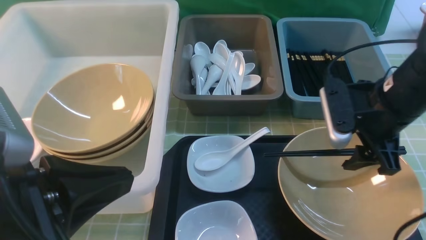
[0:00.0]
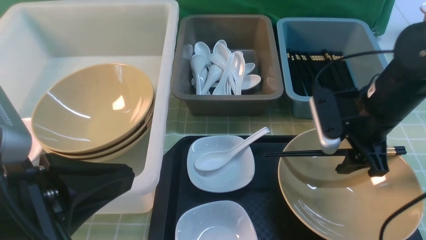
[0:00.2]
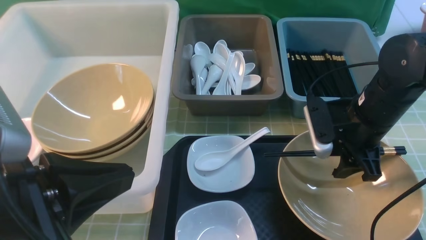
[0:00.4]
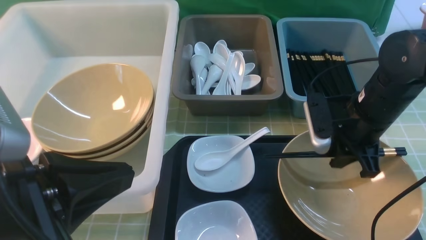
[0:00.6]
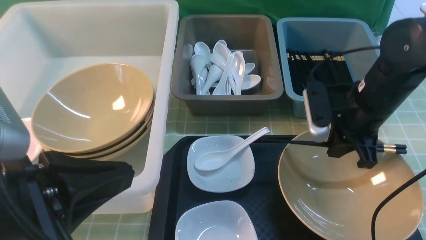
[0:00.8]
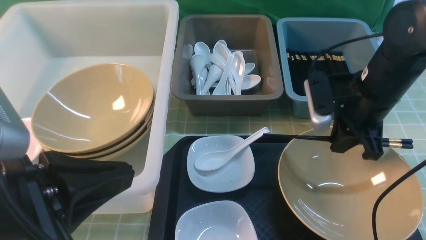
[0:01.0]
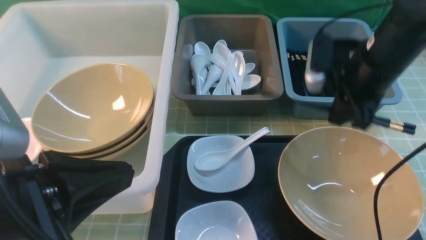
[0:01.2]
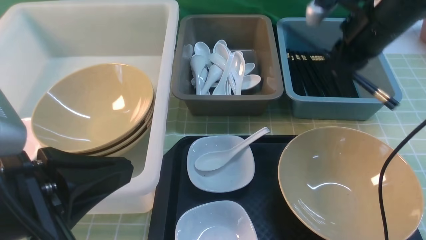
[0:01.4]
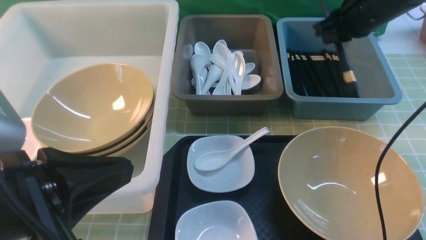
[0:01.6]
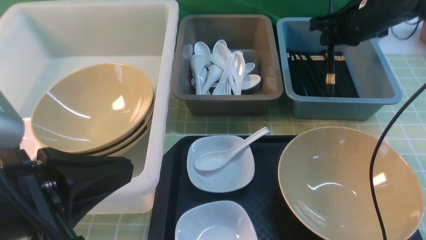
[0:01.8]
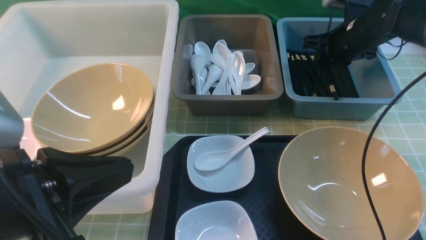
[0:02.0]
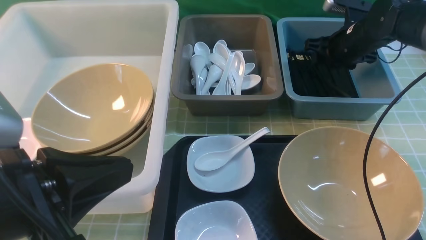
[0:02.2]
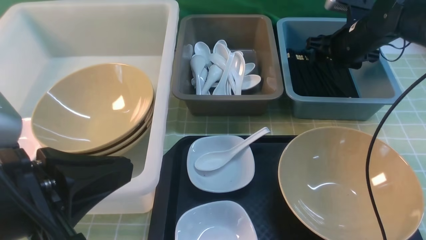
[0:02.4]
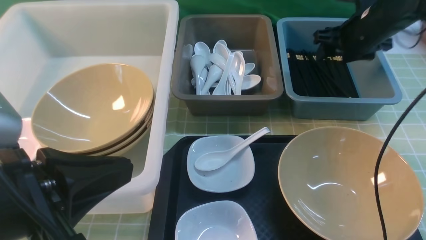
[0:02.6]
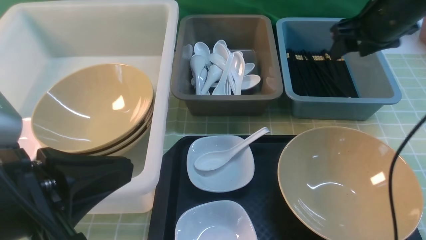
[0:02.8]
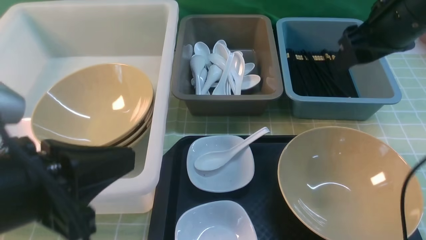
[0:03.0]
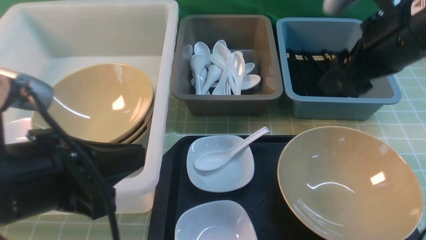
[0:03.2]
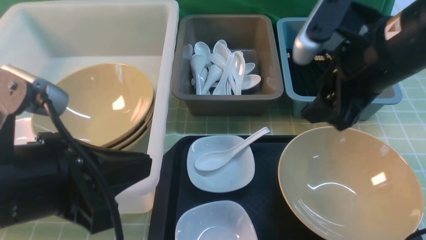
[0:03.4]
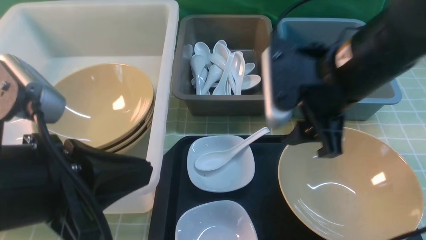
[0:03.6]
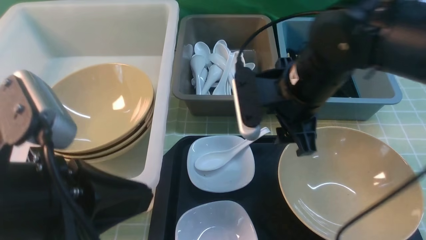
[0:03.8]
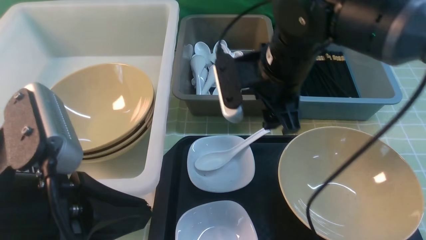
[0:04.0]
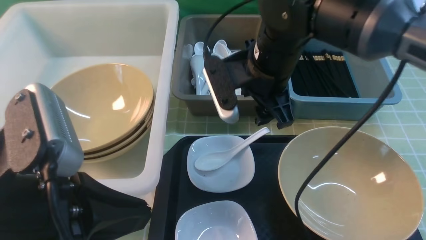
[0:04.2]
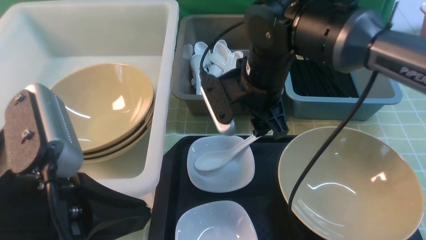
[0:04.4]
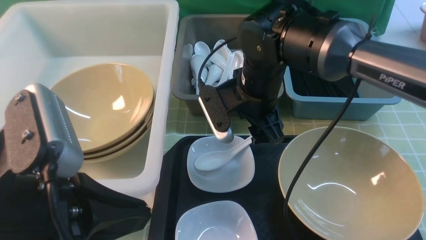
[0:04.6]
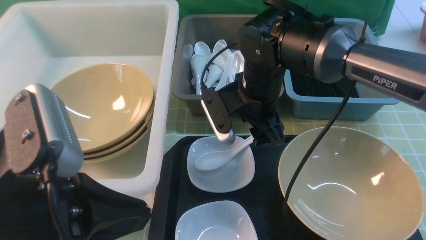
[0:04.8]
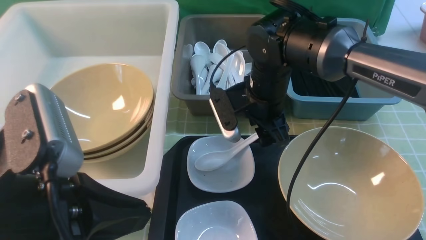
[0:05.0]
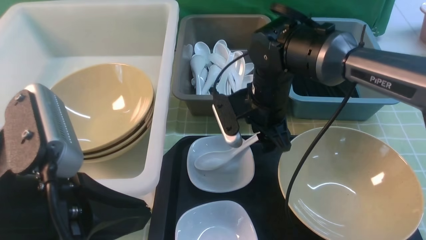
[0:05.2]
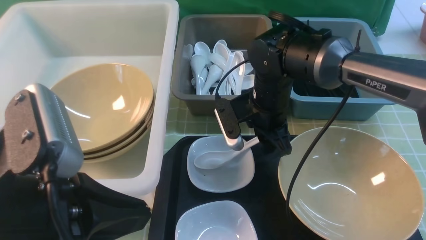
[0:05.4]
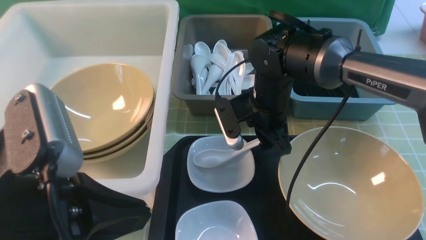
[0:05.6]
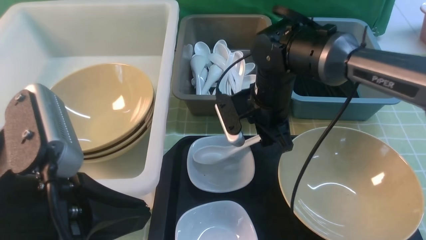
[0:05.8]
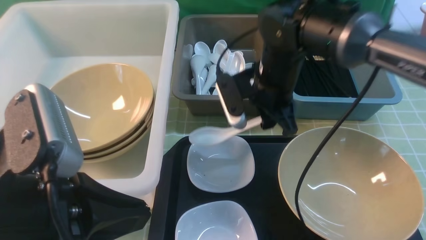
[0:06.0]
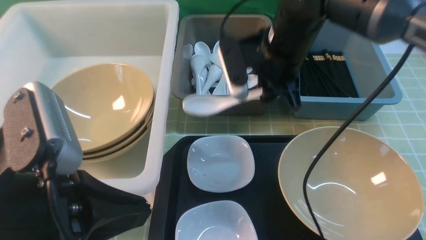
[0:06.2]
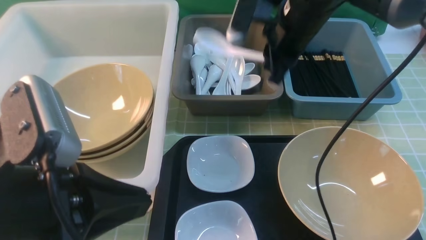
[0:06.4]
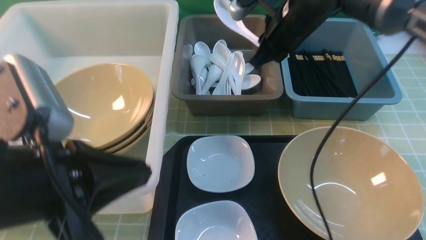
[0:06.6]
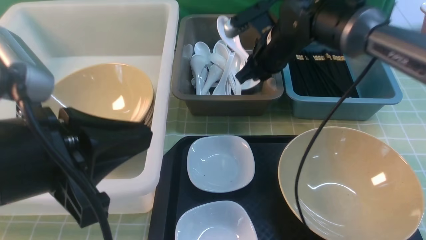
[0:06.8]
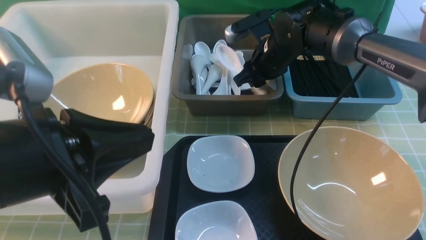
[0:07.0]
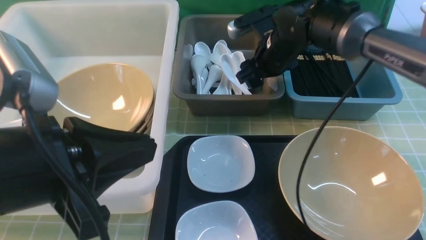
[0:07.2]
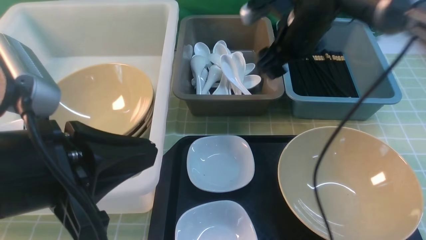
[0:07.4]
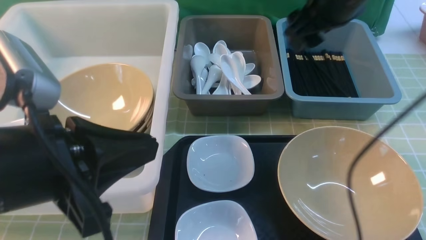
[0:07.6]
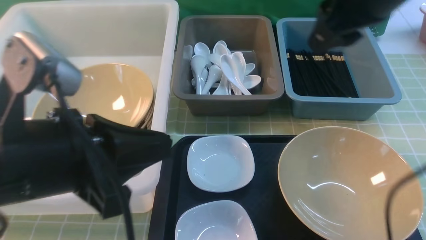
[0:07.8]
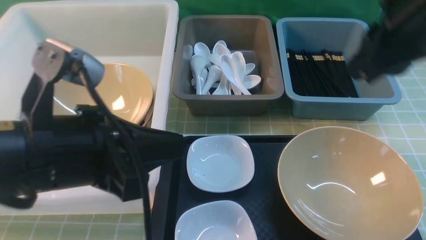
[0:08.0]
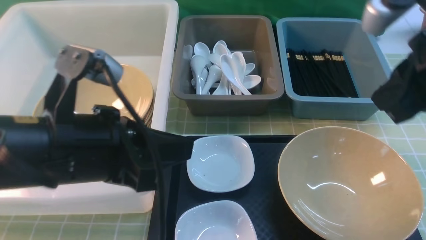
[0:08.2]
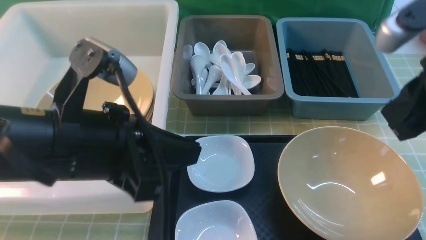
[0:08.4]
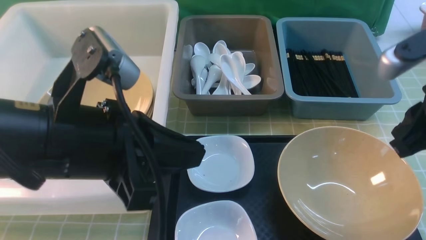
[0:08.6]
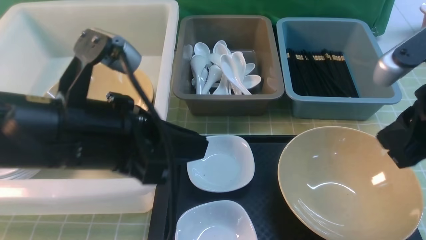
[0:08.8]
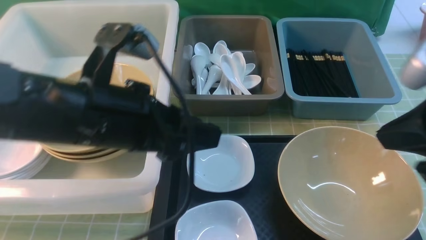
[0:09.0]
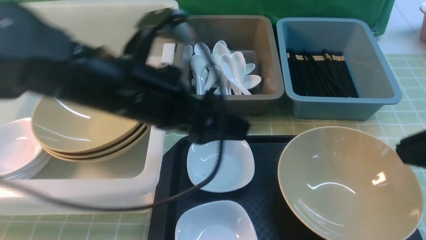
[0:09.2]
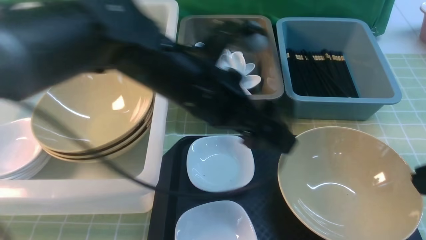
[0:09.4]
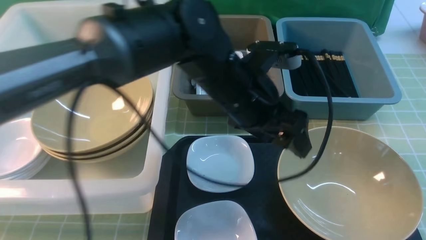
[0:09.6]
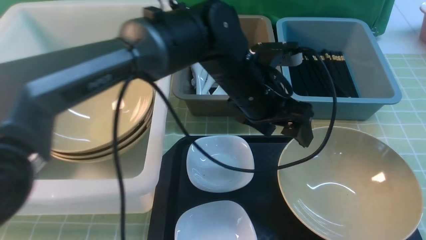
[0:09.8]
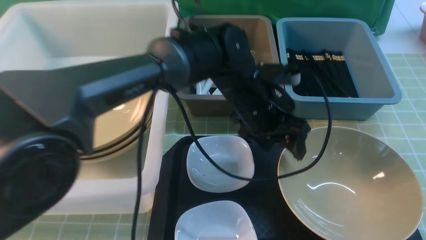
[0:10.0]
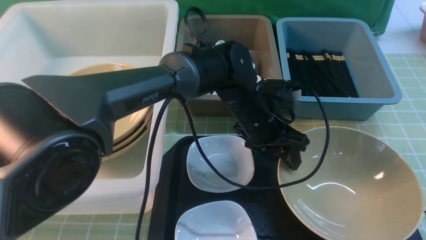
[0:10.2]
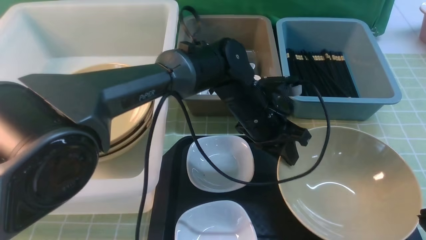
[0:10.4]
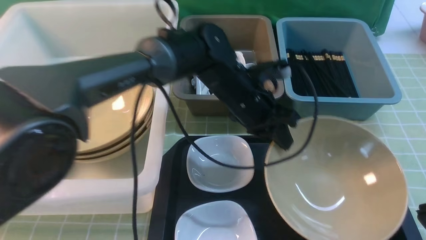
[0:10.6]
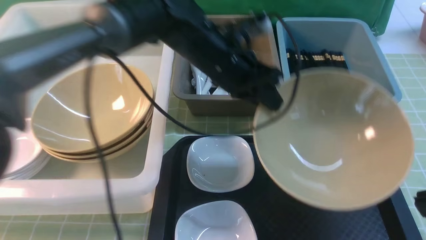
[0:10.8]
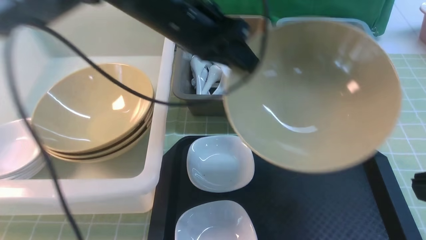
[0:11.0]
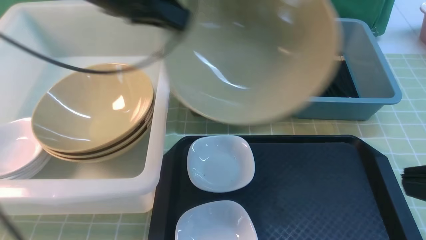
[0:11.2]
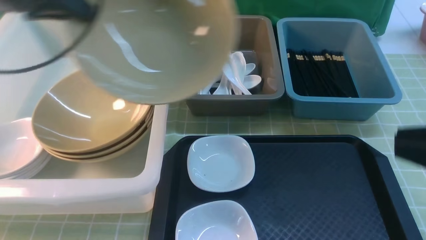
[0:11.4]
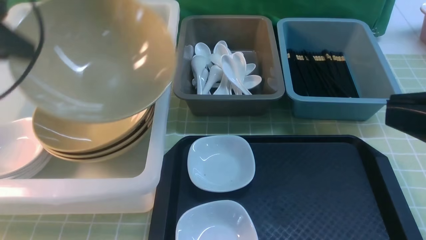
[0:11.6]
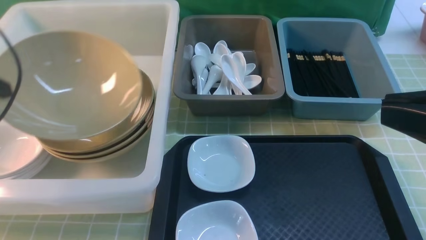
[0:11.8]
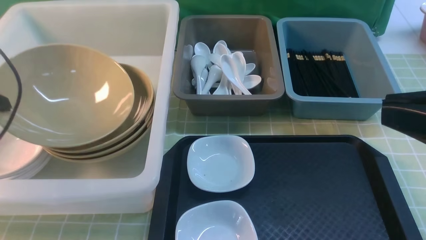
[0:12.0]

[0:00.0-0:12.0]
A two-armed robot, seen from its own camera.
Task of the whole recording: on green table put chopsticks spoon bowls plates into blue grey white boxes.
Step, 0:01.2 to 0:02.4: use the right arm to put the chopsticks into the small storage box on the right.
Step, 0:02.6 to 0:06.2: use the right arm to grab the soup spoon in the middle.
Step, 0:06.4 to 0:07.6: use the right arm to put the soup spoon into the small storage box in the middle.
Step, 0:07.8 to 0:10.4: use the left arm to grab the yellow noodle bowl on the left.
0:00.0 to 0:01.6: The right gripper goes about 15 cm forward, and closes.
0:01.6 to 0:03.0: The right gripper shifts about 10 cm backward, and opens its fingers.
0:03.0 to 0:04.4: The right gripper goes some 20 cm to the left and downward.
0:04.4 to 0:06.0: The right gripper closes its fingers.
0:06.0 to 0:07.6: The right gripper goes up and down, roughly 15 cm each way, reversing 2 times, and opens.
0:07.6 to 0:09.0: The left gripper is displaced forward and to the right by roughly 10 cm, and opens up. The right gripper heads backward and to the right, covering approximately 20 cm, and closes its fingers.
0:09.0 to 0:10.4: The right gripper shifts about 10 cm backward; the left gripper moves to the right, forward and downward, roughly 25 cm, and closes up.
0:10.4 to 0:12.0: The left gripper heads to the left, covering roughly 40 cm.

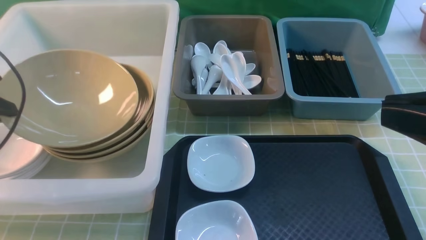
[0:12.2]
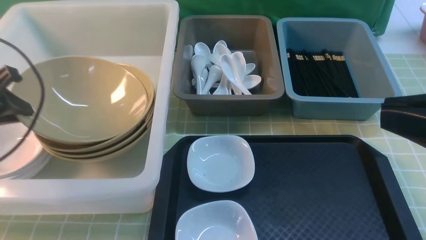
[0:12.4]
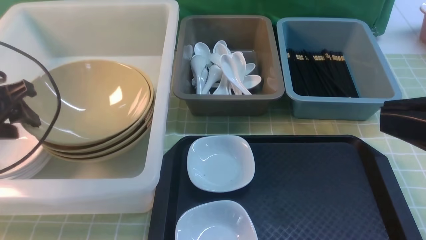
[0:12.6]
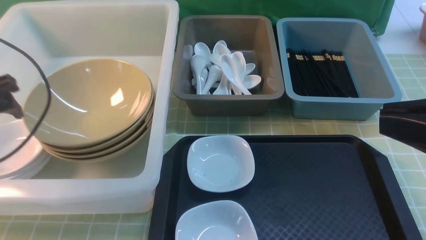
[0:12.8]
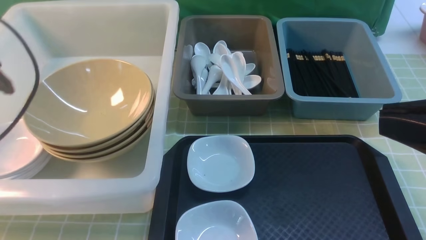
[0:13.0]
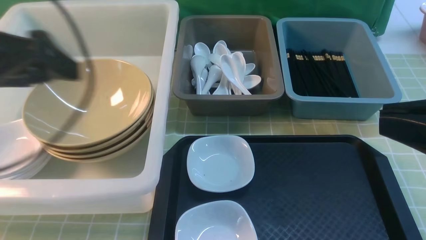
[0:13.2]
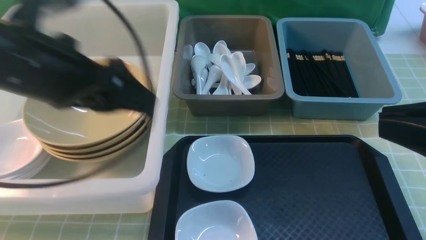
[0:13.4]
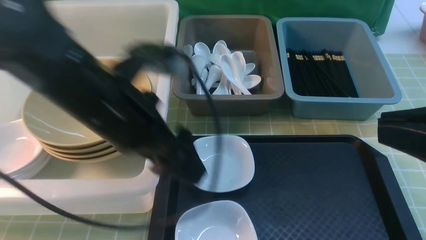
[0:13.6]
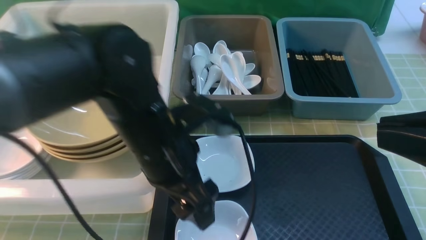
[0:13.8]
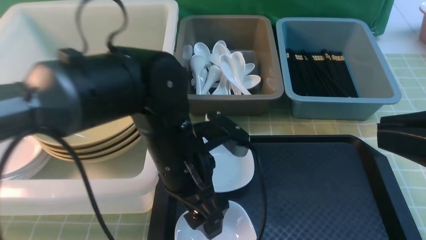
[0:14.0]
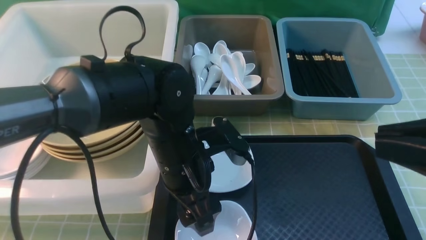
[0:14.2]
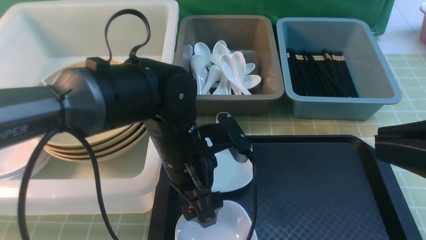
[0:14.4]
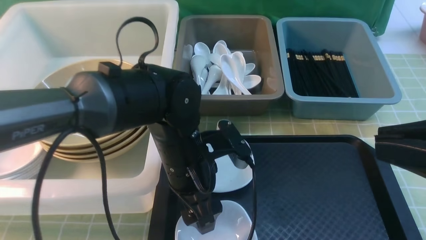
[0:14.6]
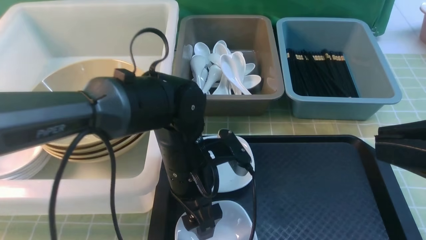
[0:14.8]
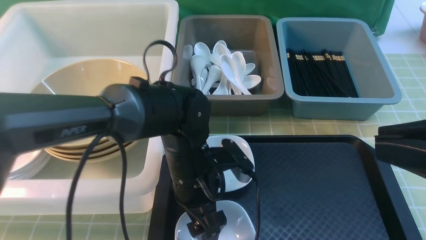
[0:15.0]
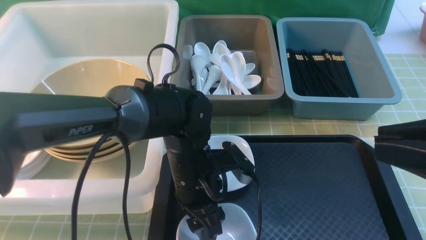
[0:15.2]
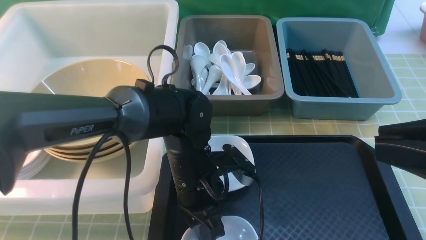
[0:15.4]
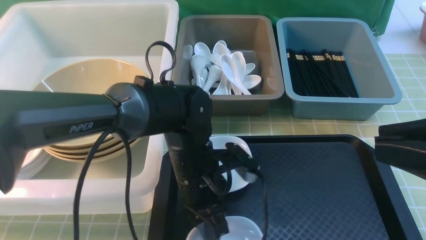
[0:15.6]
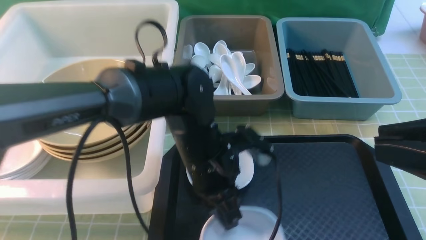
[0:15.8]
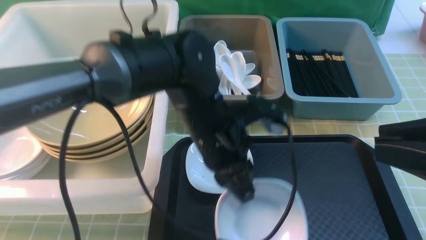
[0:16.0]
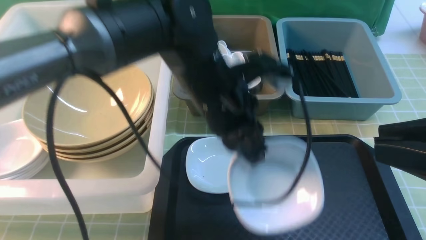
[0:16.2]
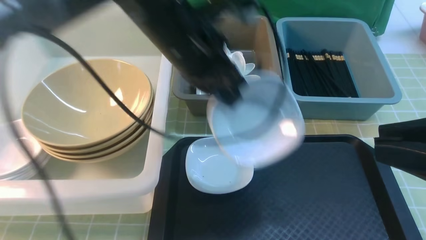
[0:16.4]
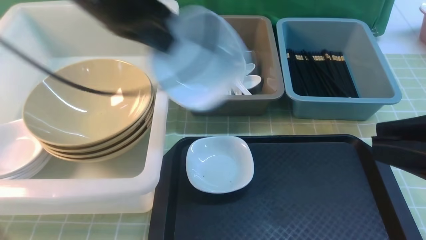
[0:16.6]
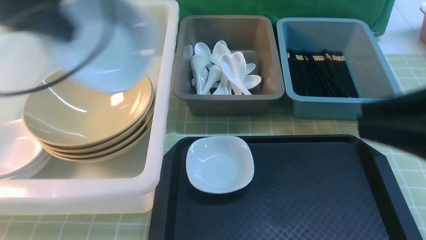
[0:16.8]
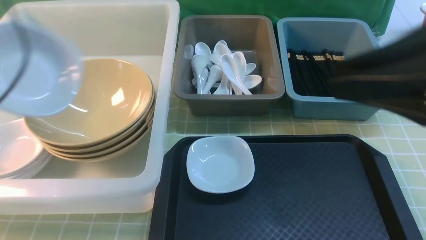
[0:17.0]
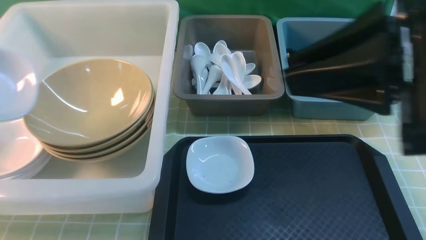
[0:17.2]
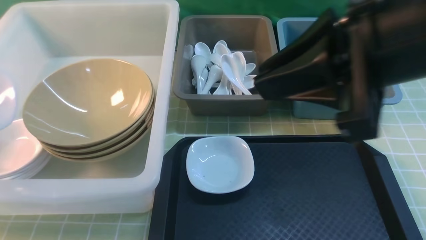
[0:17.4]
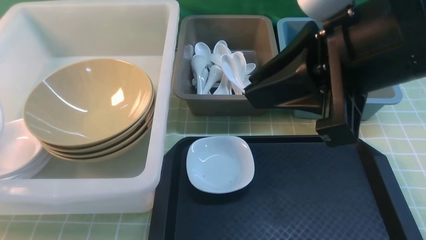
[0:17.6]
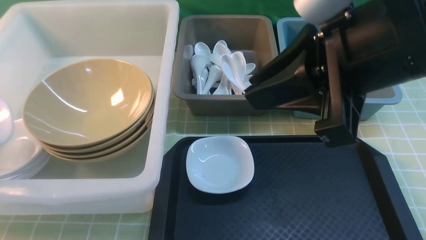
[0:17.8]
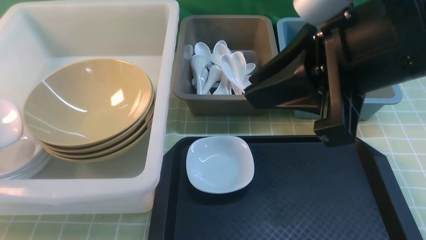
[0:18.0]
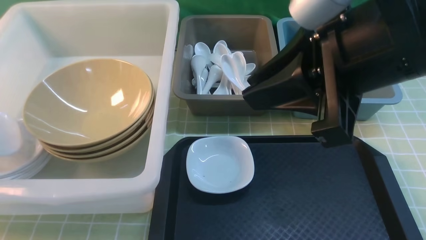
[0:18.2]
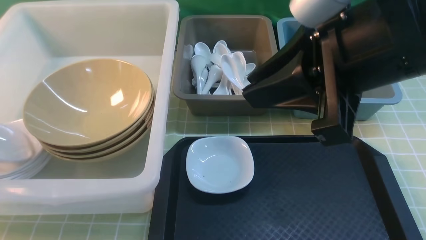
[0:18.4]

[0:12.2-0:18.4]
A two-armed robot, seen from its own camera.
Task of the whole recording: on green table put chopsticks spoon bowls plates into blue grey white boxes.
Step, 0:13.0 to 0:15.8: use the left arm to grab the plate.
0:12.2 to 0:13.8: The left gripper goes some 30 cm to the right, and opens.
0:13.8 to 0:15.4: The left gripper is displaced downward by some 10 cm, and closes.
0:15.4 to 0:16.8: The left gripper heads to the left and upward, covering roughly 35 cm.
0:16.8 to 0:18.4: The right gripper heads to the left and forward, covering some 10 cm; the left gripper heads to the left and downward, covering about 20 cm, and opens its fingers.
